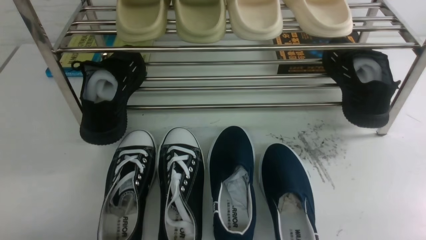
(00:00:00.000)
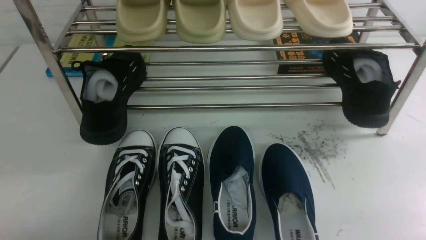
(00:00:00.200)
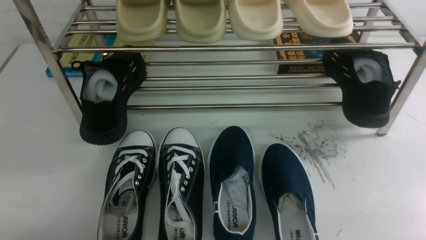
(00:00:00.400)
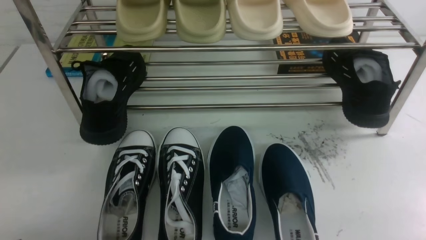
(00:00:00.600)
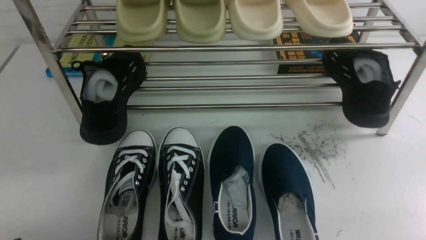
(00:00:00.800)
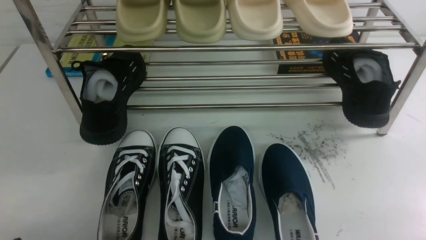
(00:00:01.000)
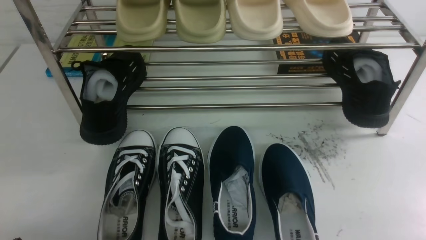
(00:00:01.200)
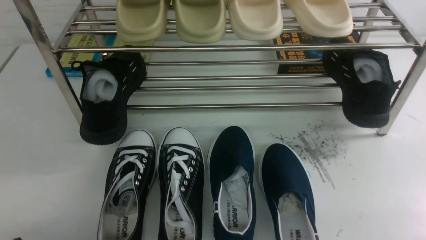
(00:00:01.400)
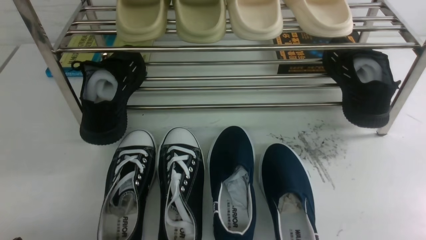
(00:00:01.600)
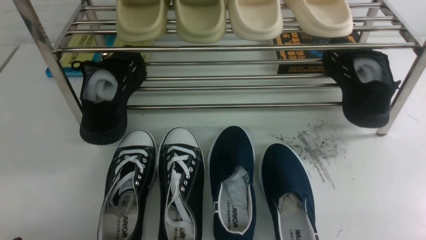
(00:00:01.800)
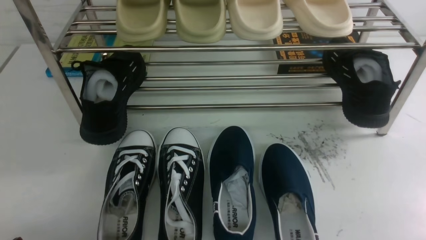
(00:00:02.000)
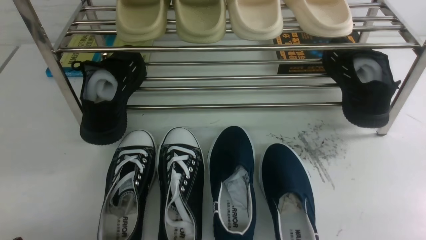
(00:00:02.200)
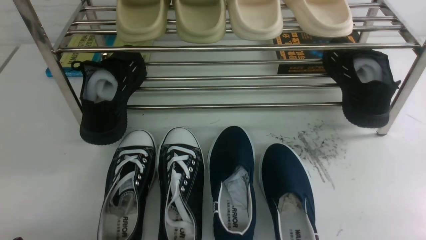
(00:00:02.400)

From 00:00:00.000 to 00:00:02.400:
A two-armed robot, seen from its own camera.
From 00:00:00.000 to 00:00:02.400: Neither gripper changes place.

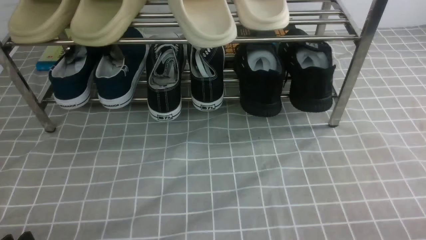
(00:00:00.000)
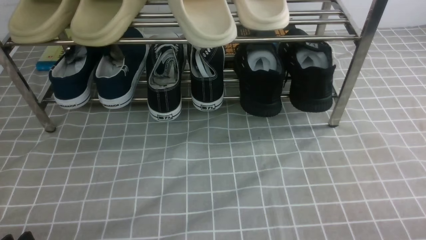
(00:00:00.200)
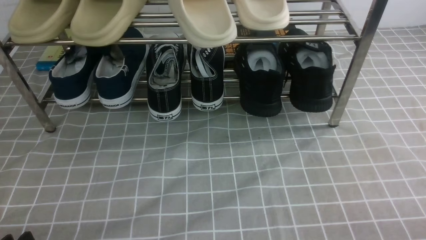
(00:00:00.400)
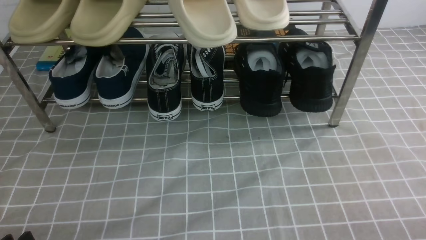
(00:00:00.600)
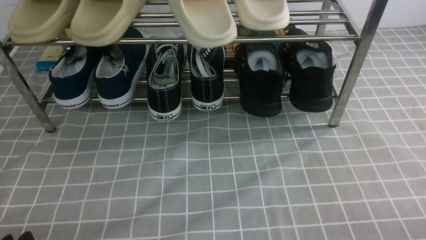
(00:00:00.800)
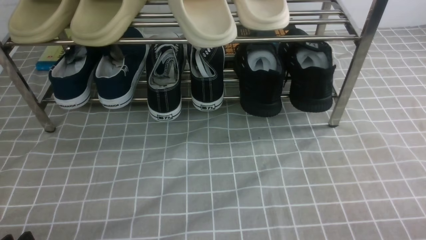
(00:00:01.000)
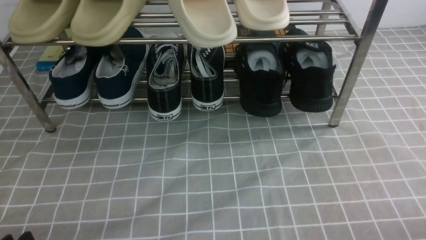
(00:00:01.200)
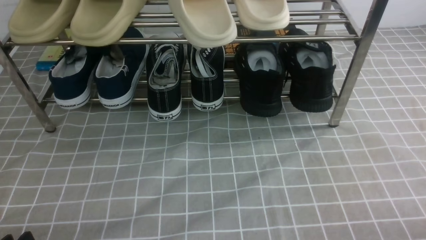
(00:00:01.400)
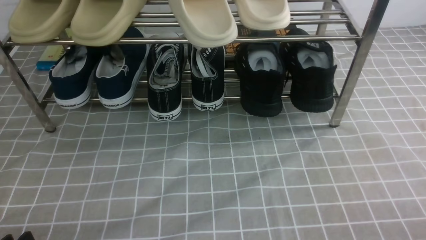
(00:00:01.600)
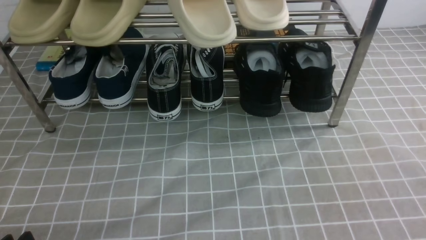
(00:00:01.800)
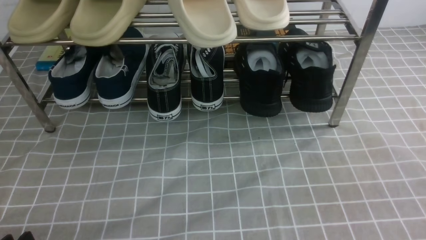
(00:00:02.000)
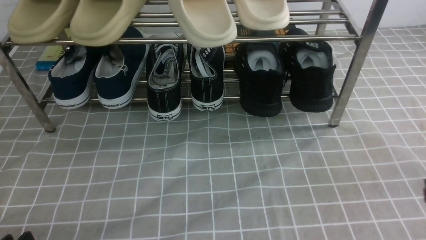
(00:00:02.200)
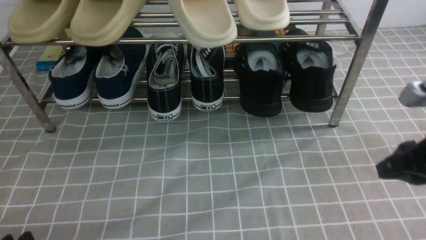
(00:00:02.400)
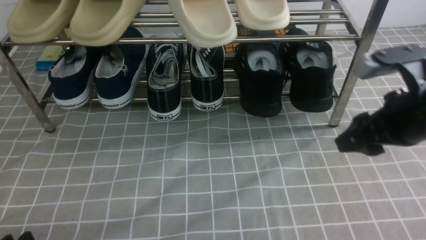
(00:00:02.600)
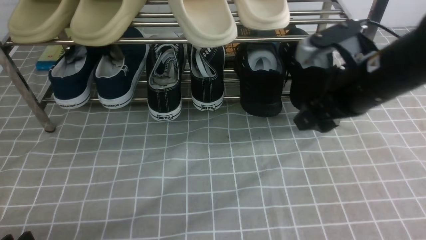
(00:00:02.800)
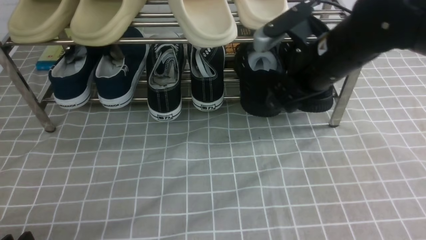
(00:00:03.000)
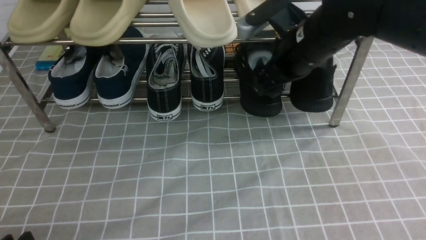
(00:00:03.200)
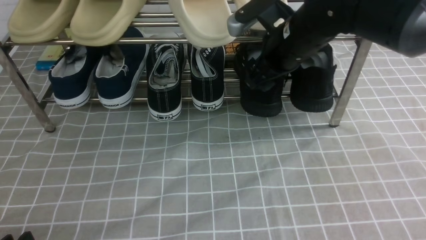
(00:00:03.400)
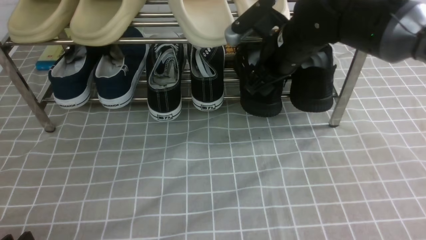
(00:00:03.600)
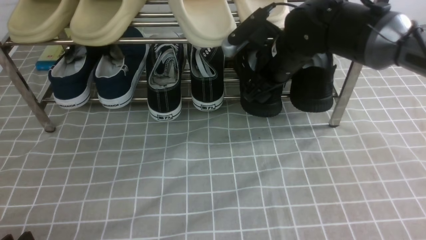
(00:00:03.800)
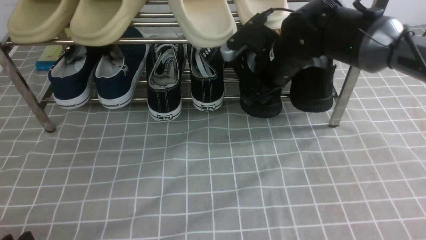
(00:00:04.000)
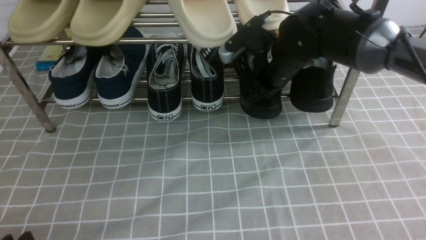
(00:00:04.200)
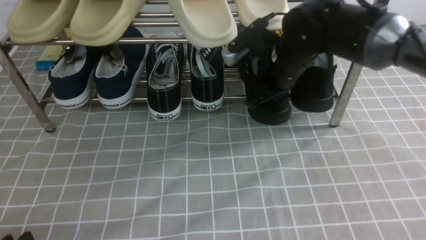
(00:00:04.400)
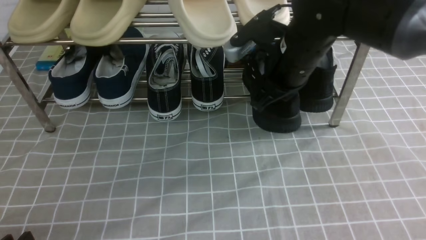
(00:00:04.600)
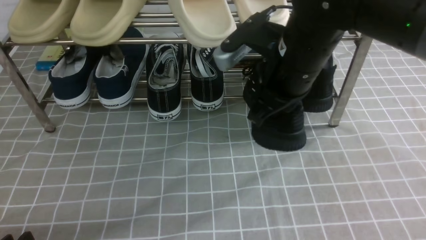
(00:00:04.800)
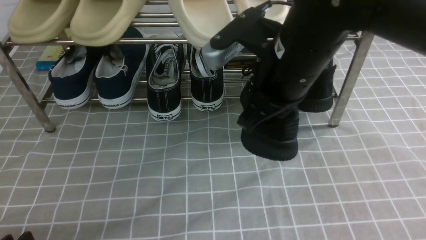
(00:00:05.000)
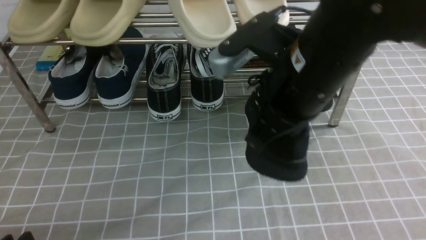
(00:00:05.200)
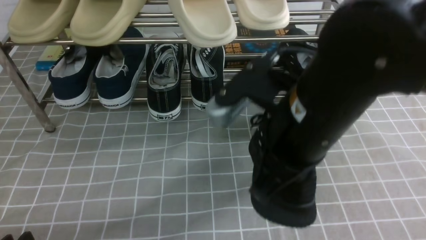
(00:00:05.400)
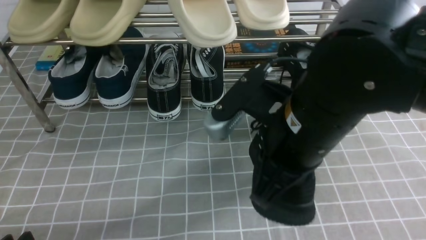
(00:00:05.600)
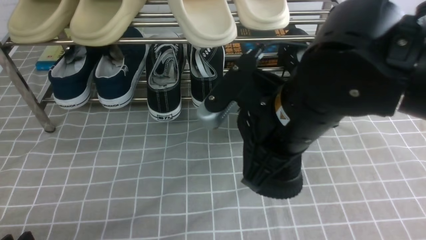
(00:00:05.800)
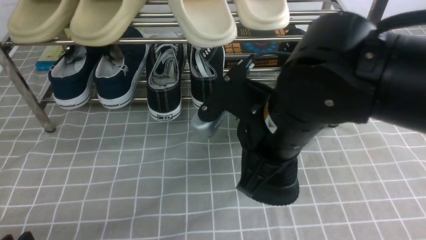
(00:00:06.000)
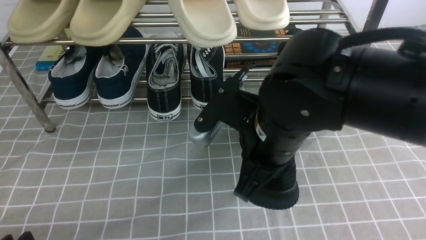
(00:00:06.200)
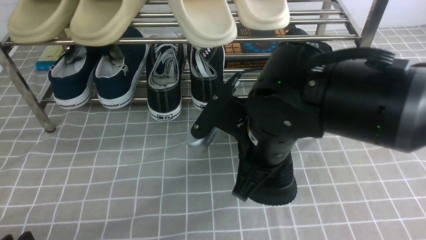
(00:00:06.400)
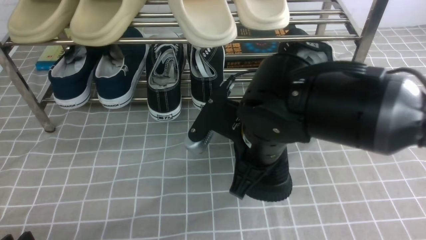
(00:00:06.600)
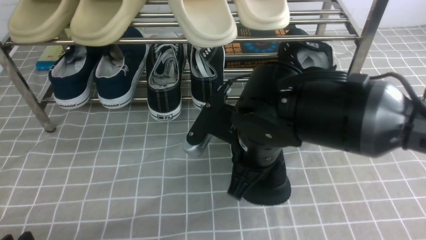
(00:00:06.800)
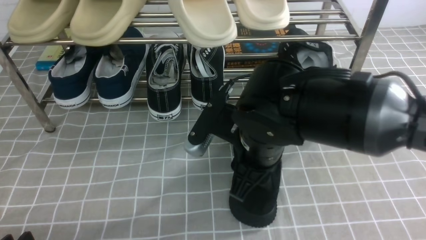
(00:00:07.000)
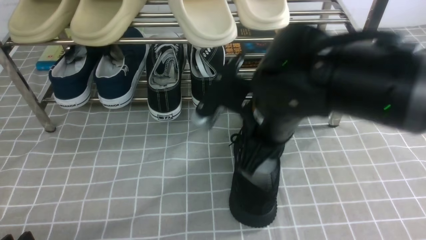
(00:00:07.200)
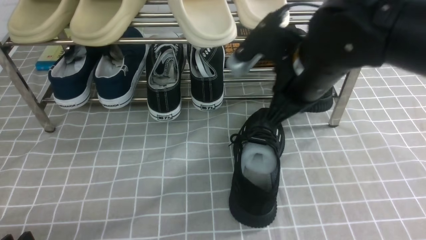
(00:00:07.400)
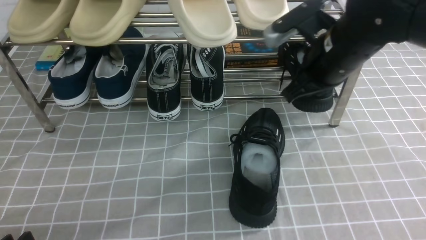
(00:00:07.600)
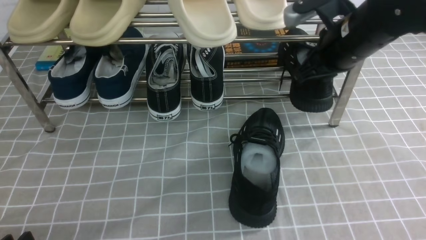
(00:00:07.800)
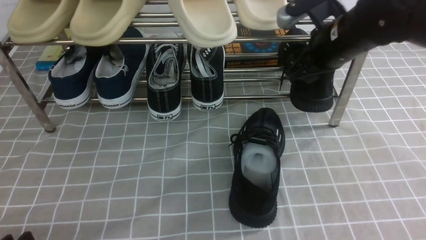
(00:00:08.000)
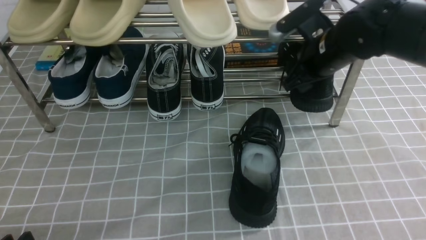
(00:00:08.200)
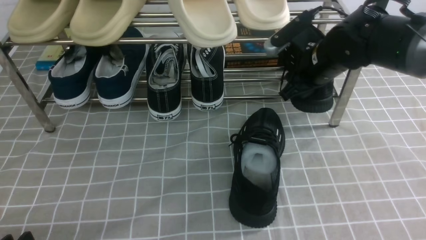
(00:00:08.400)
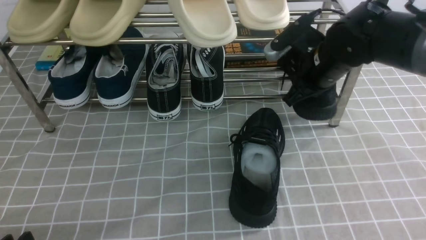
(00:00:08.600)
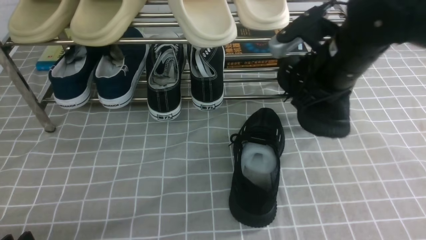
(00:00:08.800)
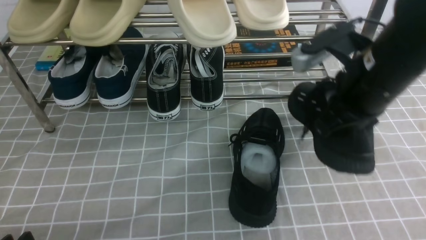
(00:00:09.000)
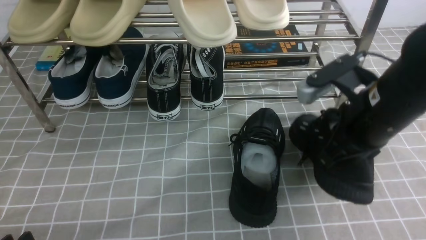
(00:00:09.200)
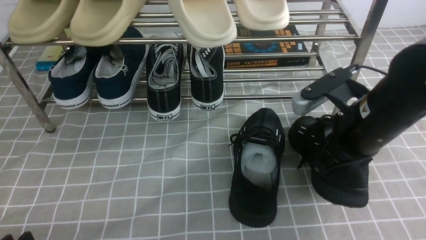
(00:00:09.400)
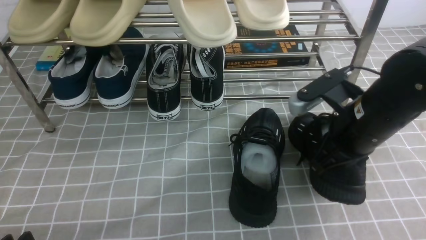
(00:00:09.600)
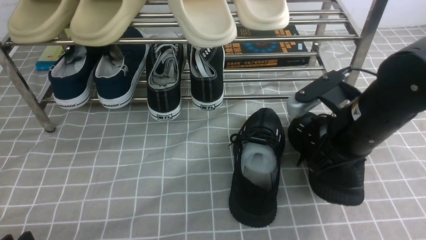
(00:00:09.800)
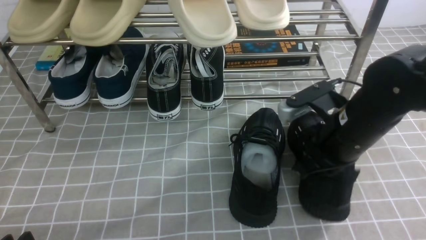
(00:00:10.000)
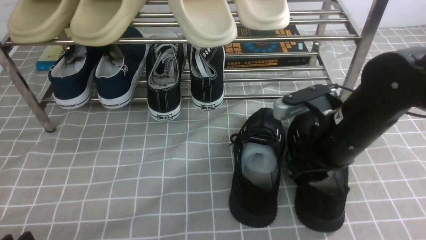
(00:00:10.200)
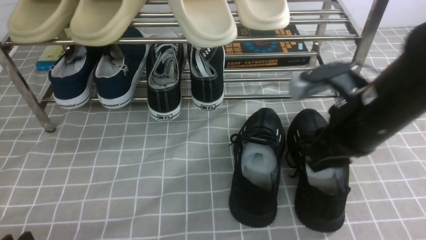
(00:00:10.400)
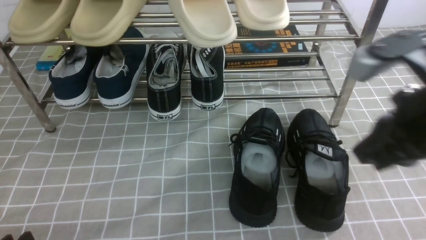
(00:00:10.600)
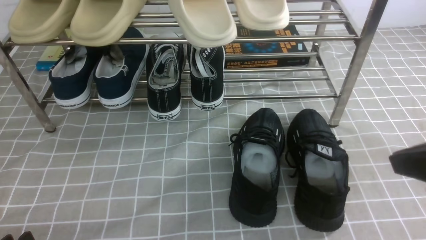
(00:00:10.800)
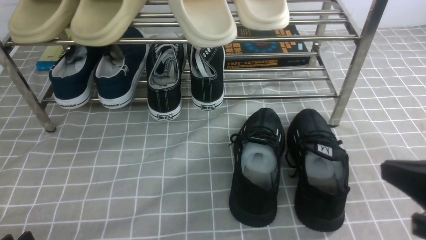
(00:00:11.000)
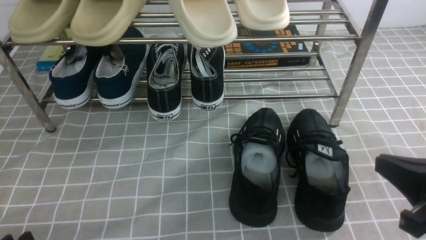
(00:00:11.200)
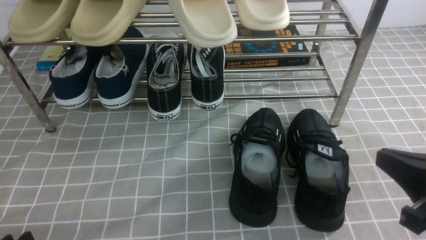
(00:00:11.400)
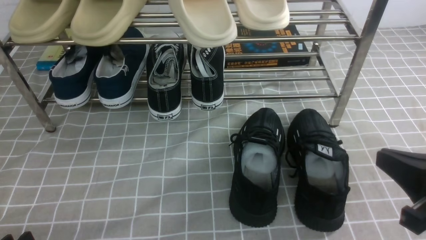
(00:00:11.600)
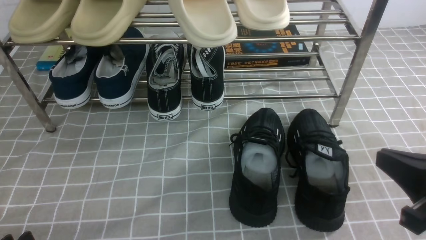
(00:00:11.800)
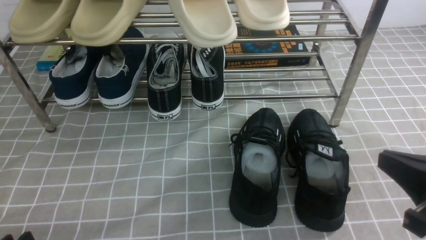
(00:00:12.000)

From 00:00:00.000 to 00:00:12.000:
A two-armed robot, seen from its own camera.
Step, from 00:00:00.000 to 00:00:04.400: use the right arm to clamp a shoe on the right side of the shoe rack.
Step, from 00:00:04.600 to 00:00:07.000: use the right arm to take out the clamped shoe from the shoe rack and put it down.
Step, from 00:00:07.400 to 00:00:08.800: use the right arm to clamp a shoe on the right side of the shoe rack.
Step, from 00:00:09.000 to 00:00:10.200: use the right arm to take out the clamped shoe from the shoe rack and put it down.
From 00:00:01.600 to 00:00:03.000: The right gripper heads forward and to the left, covering roughly 30 cm, and opens.
From 00:00:03.000 to 00:00:04.400: The right gripper moves approximately 5 cm, and closes its fingers.
From 00:00:04.400 to 00:00:06.000: The right gripper travels backward by approximately 15 cm.
From 00:00:06.000 to 00:00:07.600: The right gripper goes some 15 cm forward and to the right.
From 00:00:07.600 to 00:00:09.000: The right gripper is displaced backward by about 5 cm, and opens and closes again.
From 00:00:10.400 to 00:00:12.000: The right gripper heads backward and to the right, covering about 15 cm.

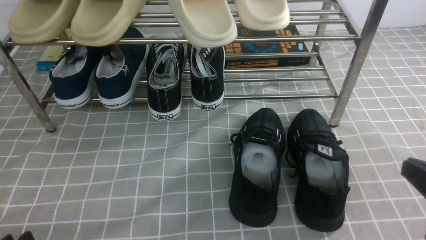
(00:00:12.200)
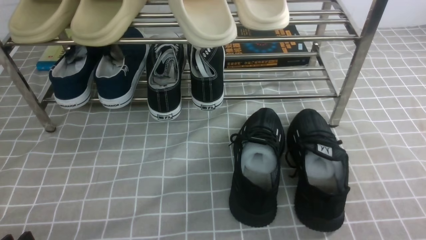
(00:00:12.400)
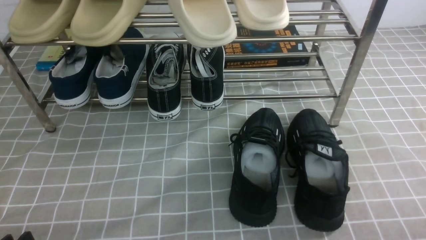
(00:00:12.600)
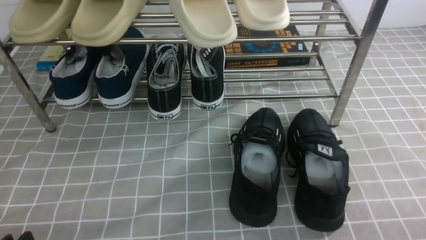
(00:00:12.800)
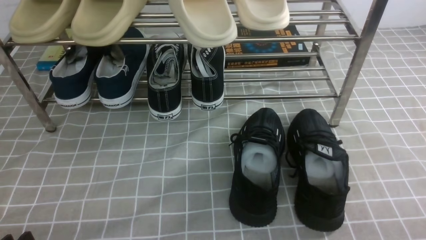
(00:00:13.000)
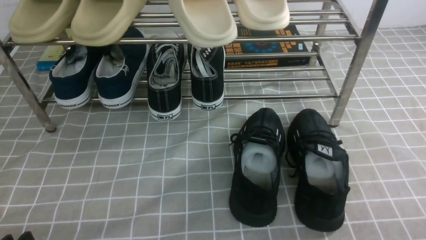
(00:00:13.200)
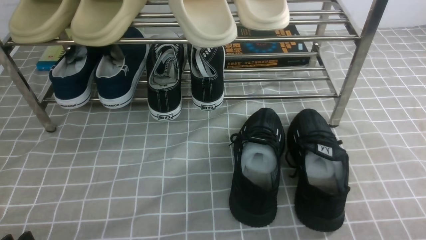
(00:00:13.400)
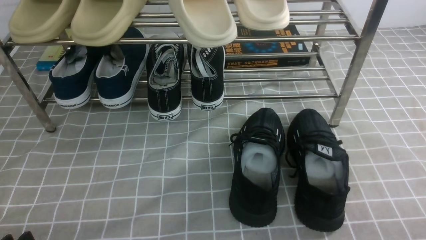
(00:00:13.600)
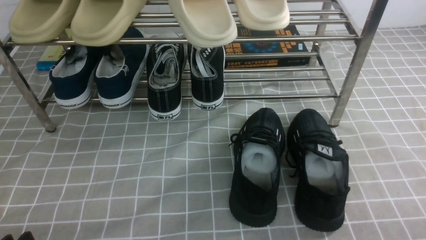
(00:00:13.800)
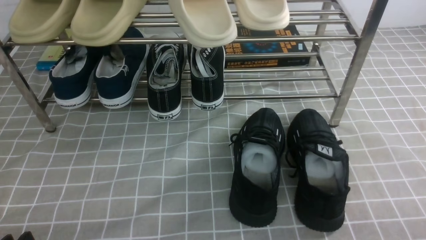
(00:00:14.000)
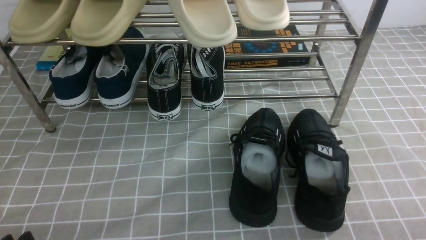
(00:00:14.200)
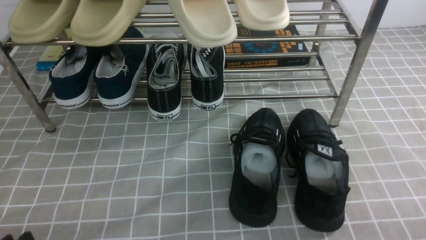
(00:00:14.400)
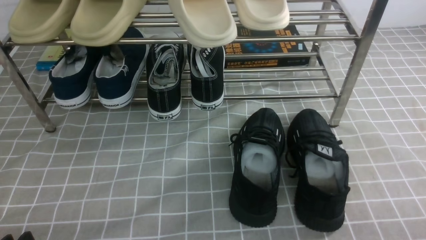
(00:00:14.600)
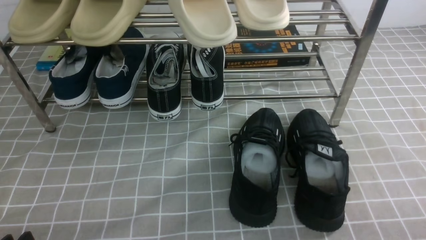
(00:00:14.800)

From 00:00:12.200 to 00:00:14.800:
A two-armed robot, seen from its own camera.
From 00:00:12.200 to 00:00:13.400: The right gripper goes some 10 cm downward.
From 00:00:13.400 to 00:00:14.800: The two grippers keep their place.
